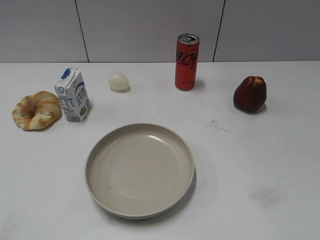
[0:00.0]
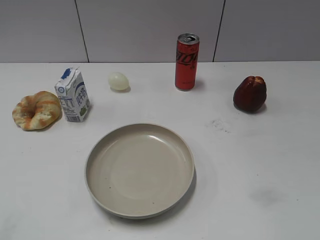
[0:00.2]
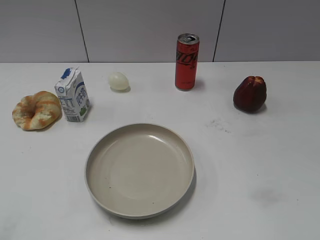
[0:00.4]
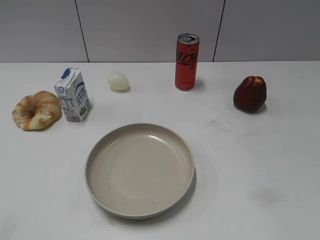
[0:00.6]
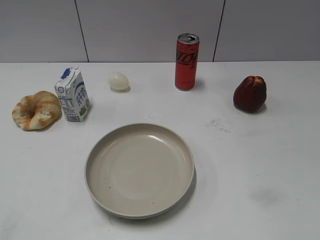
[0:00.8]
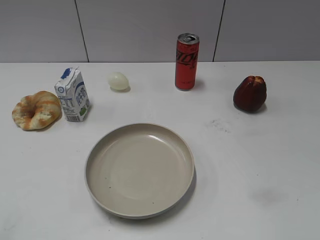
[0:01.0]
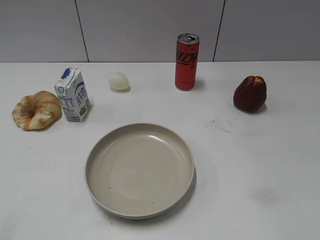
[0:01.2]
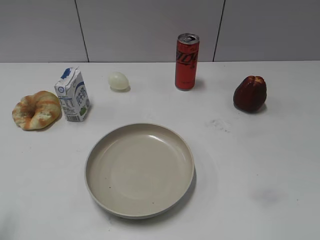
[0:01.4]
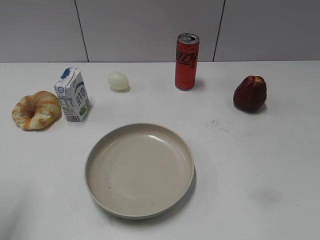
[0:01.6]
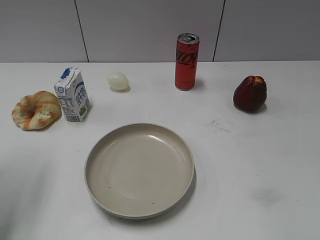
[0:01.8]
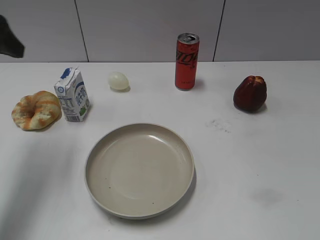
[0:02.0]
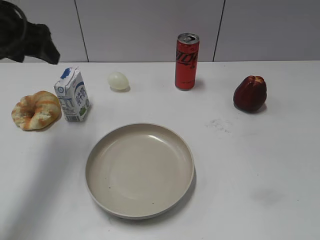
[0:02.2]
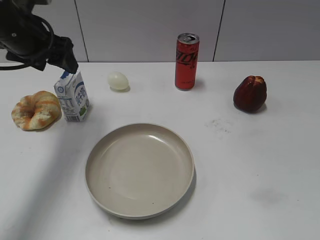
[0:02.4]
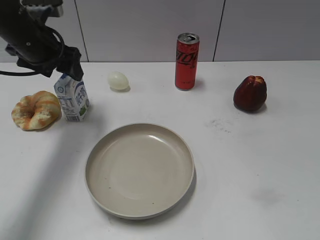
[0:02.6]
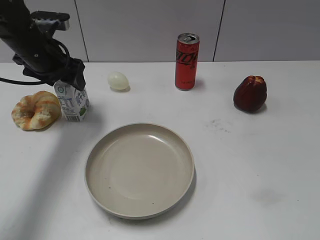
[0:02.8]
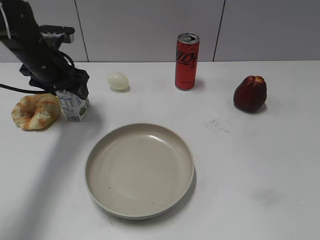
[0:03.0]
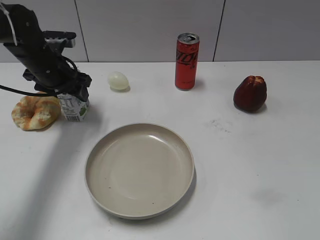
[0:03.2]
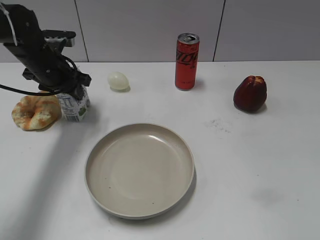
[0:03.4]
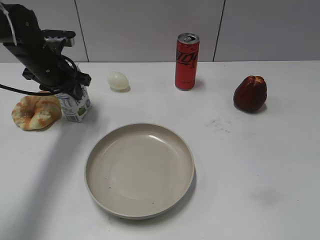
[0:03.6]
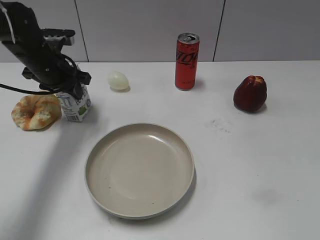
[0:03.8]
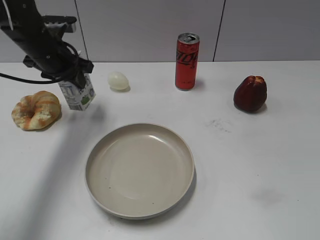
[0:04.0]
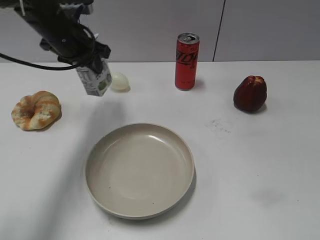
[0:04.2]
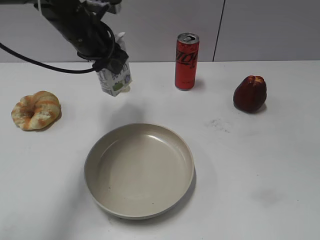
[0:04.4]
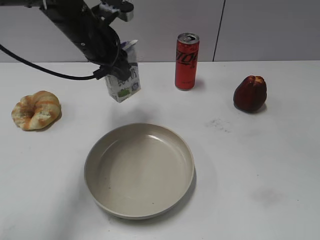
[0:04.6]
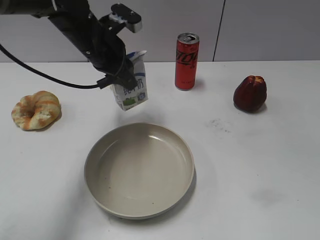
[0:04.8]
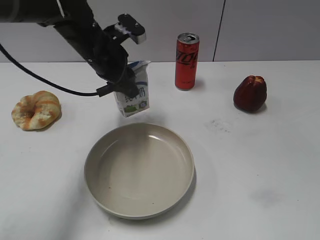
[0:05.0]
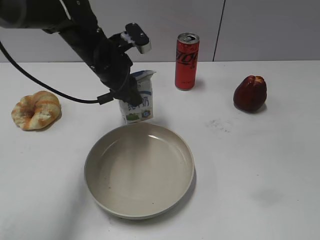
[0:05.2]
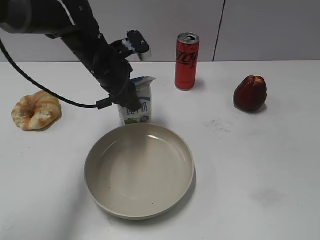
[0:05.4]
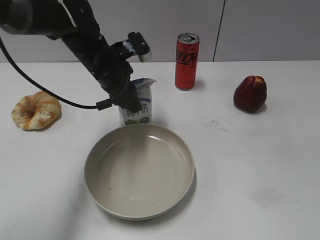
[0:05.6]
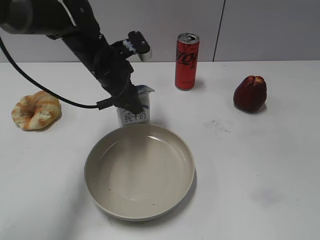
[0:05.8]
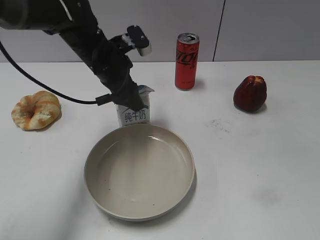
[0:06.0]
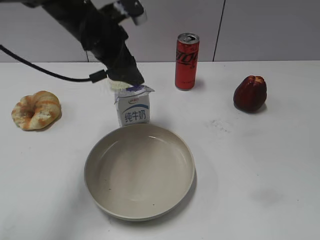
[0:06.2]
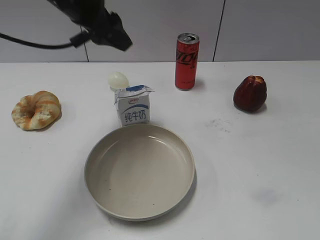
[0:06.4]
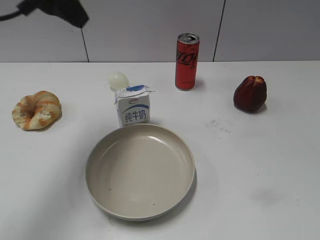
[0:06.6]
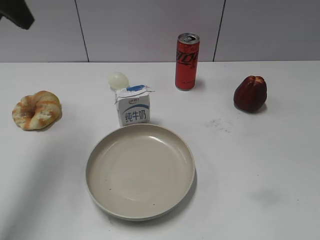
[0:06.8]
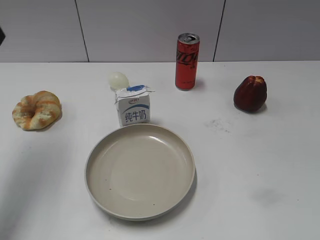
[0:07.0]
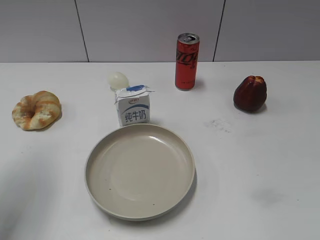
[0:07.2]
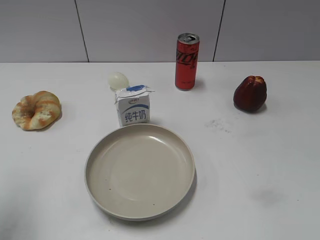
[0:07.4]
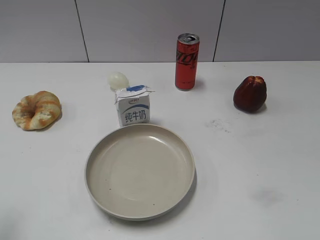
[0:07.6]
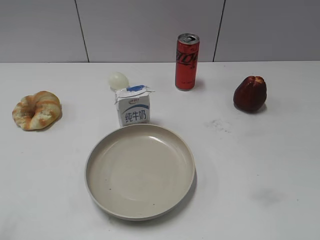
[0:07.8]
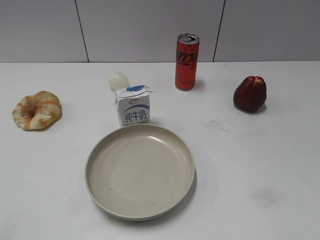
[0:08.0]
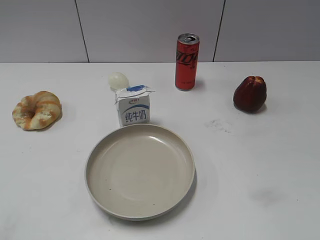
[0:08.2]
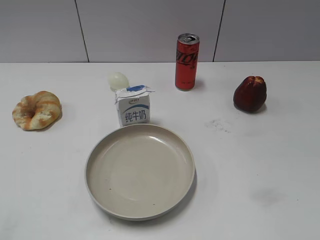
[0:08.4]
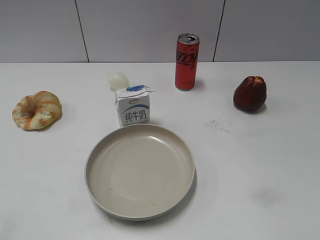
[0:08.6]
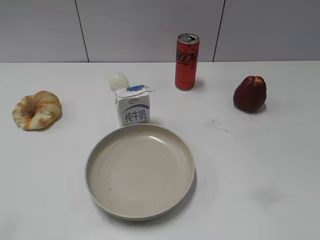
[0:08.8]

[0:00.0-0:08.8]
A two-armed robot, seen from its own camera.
Step, 0:00.8 to 0:03.6: Grasp the milk with left gripper.
Step, 0:03.8 to 0:06.0: Place the milk on the table with left gripper.
0:01.4 to 0:03.0: The left gripper shifts some 35 cm forward.
0:03.0 to 0:04.4: The left gripper heads to the right and upward, covering some 10 cm, and closes up.
0:04.4 to 0:05.8: The left gripper moves downward, roughly 5 cm, and opens.
0:05.8 to 0:07.4: The left gripper moves to the left, backward and upward, approximately 30 cm.
0:07.4 to 0:08.8: The left gripper is displaced backward by some 20 cm.
